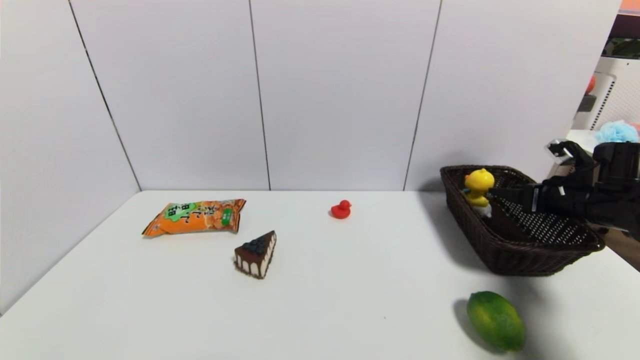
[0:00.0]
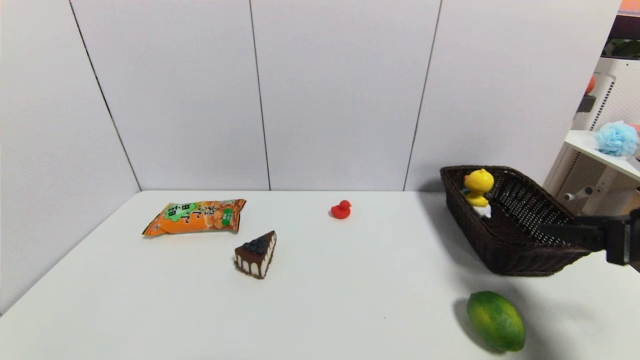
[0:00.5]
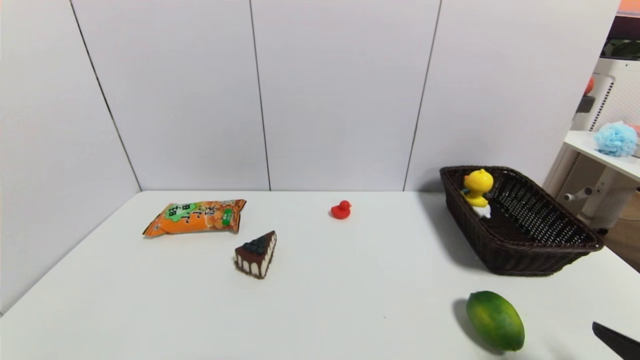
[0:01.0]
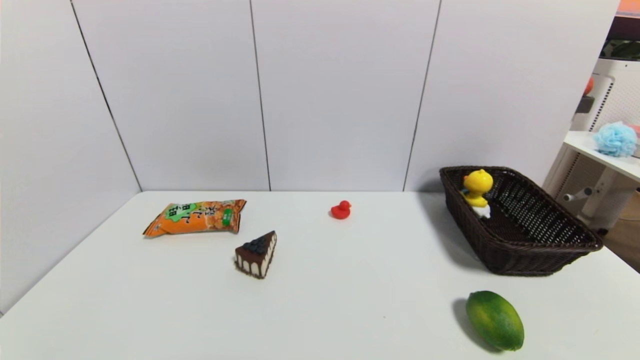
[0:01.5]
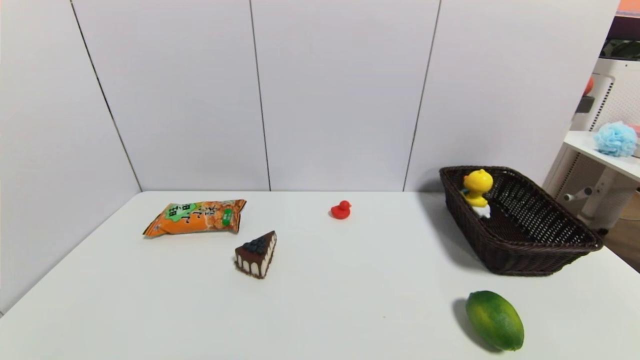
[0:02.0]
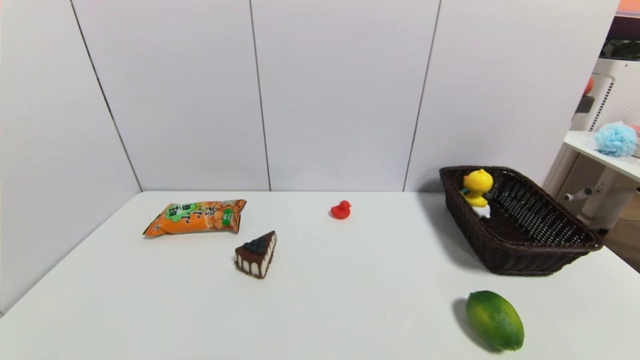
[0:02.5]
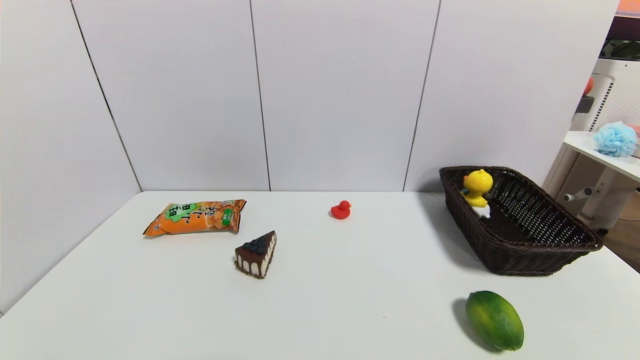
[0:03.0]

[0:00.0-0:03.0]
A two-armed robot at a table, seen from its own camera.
Task of the whole recording: use a gripper to pick the target object and place on the brown basket.
0:00.0 to 0:01.5: The right gripper travels backward by approximately 35 cm, and opens up.
